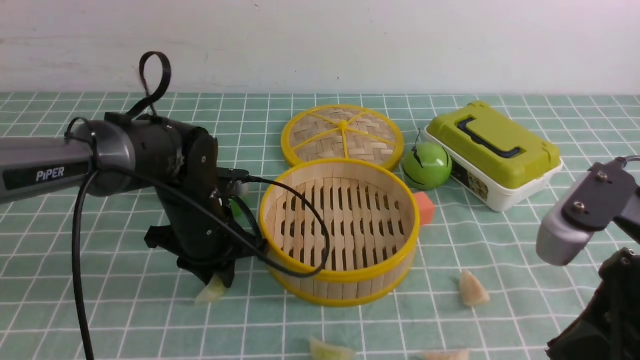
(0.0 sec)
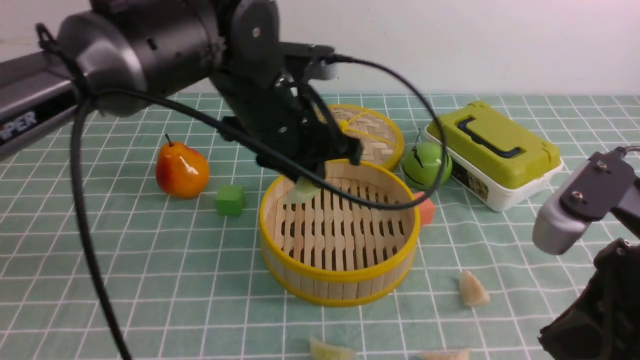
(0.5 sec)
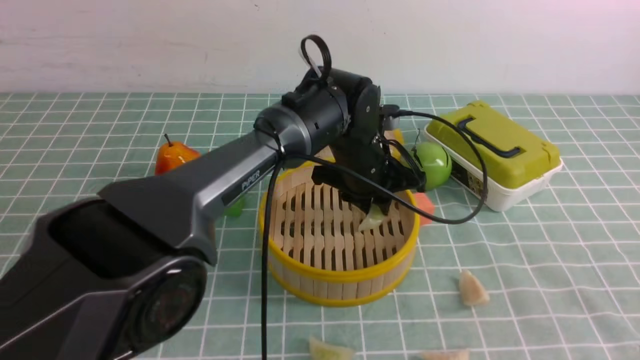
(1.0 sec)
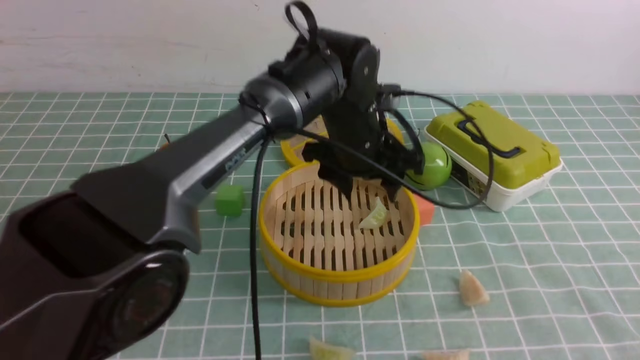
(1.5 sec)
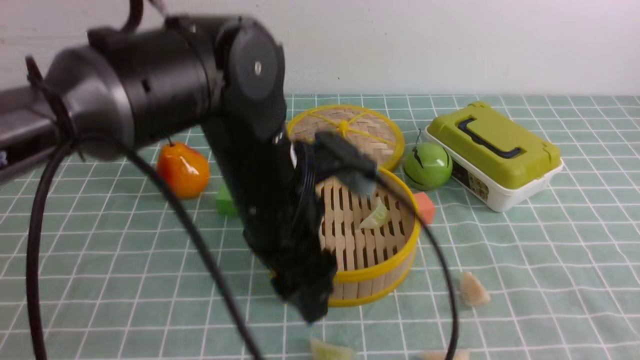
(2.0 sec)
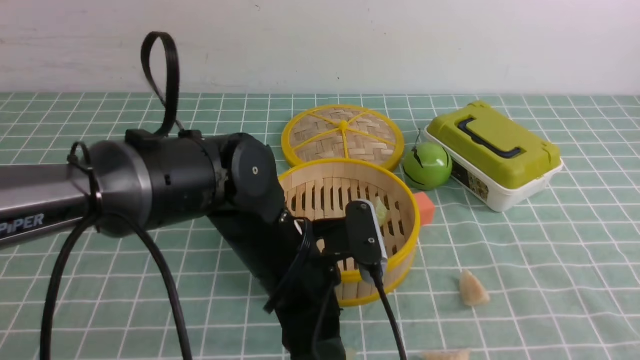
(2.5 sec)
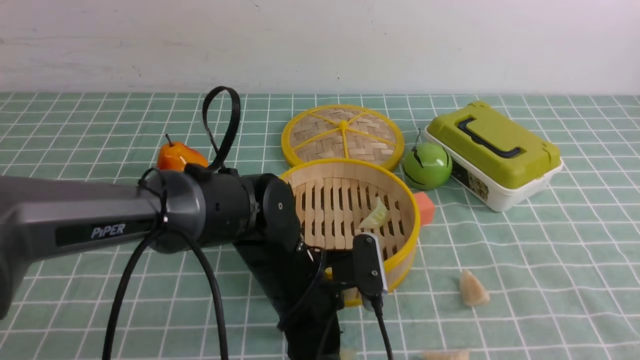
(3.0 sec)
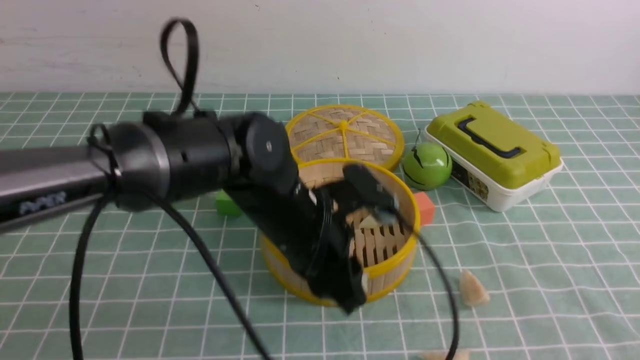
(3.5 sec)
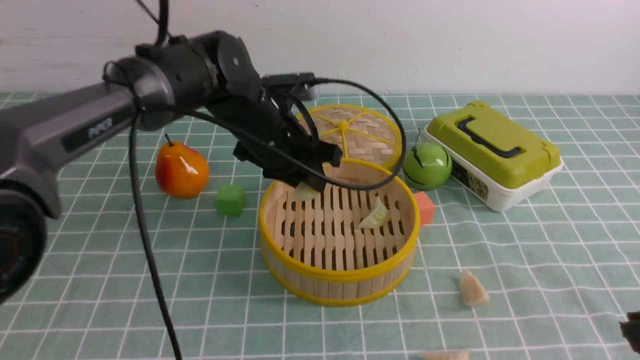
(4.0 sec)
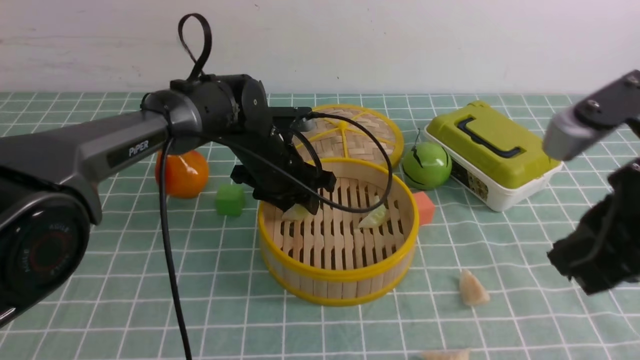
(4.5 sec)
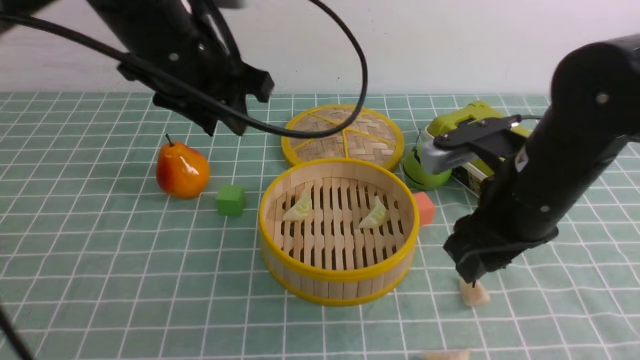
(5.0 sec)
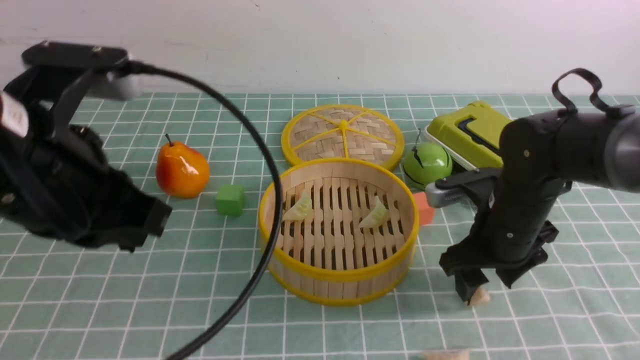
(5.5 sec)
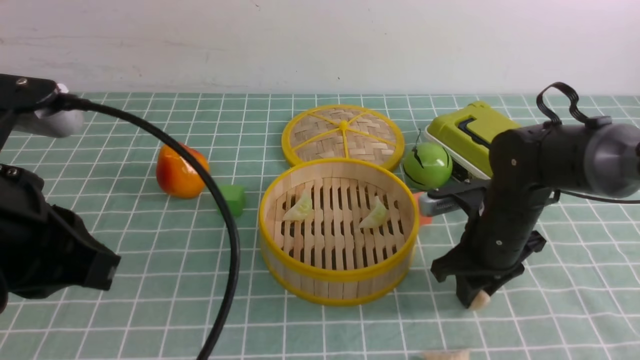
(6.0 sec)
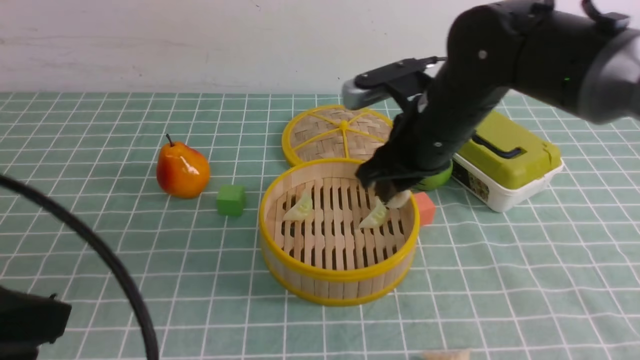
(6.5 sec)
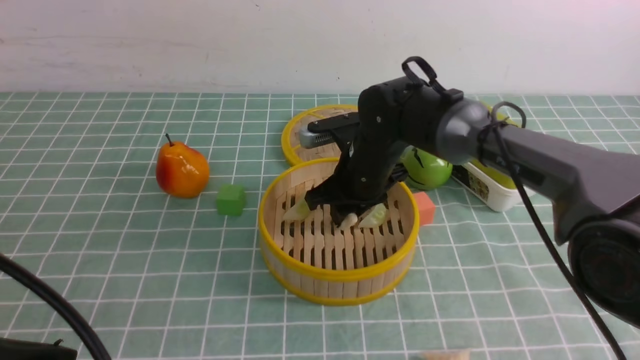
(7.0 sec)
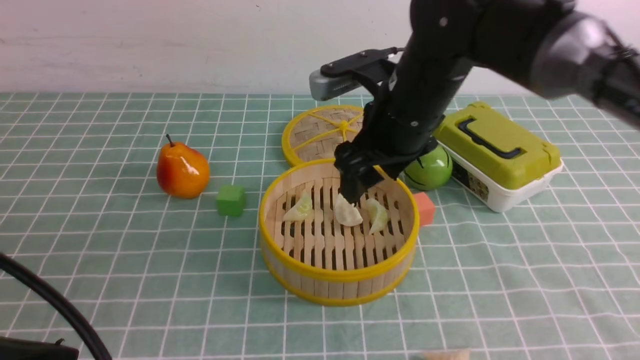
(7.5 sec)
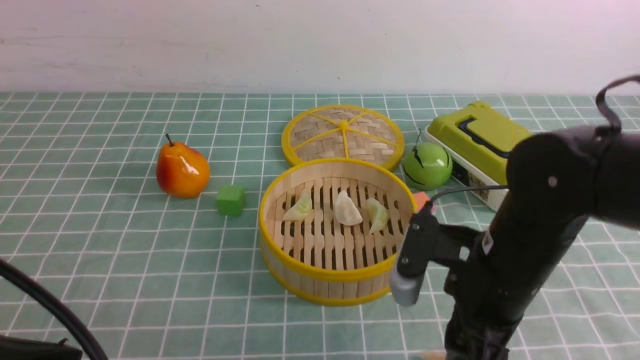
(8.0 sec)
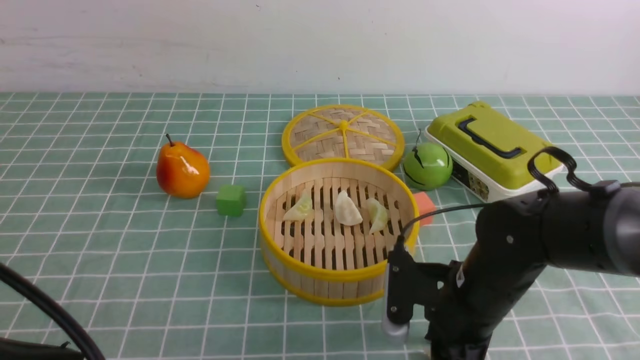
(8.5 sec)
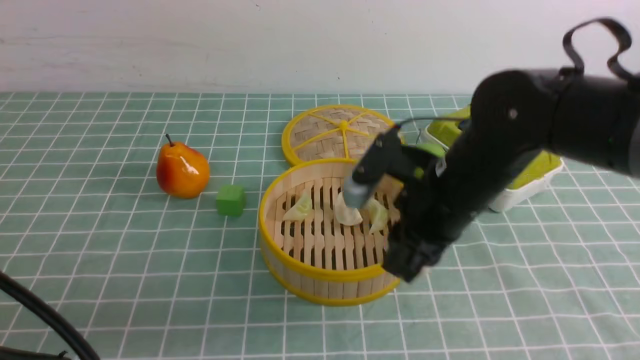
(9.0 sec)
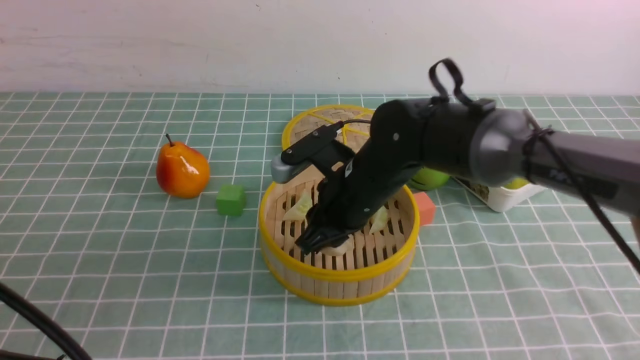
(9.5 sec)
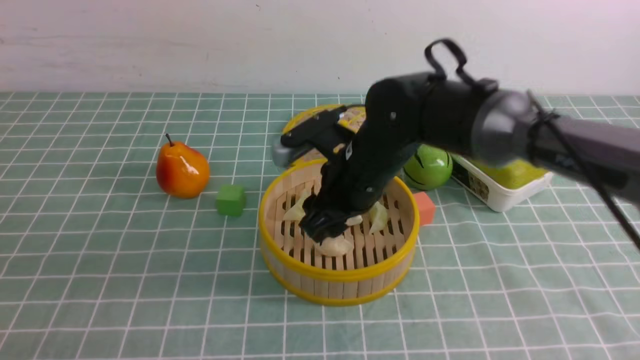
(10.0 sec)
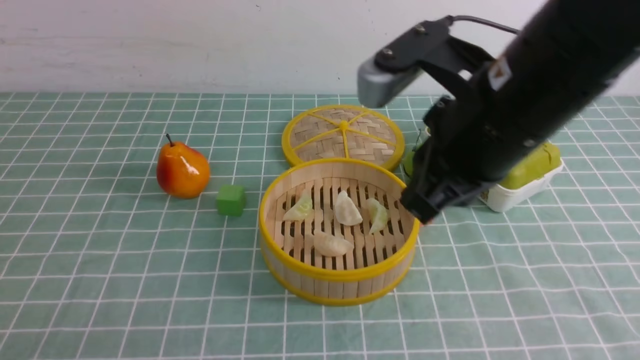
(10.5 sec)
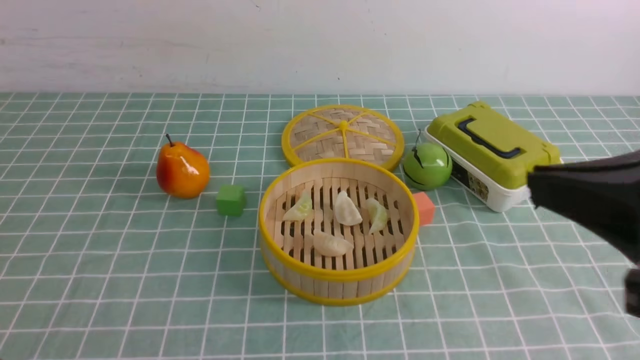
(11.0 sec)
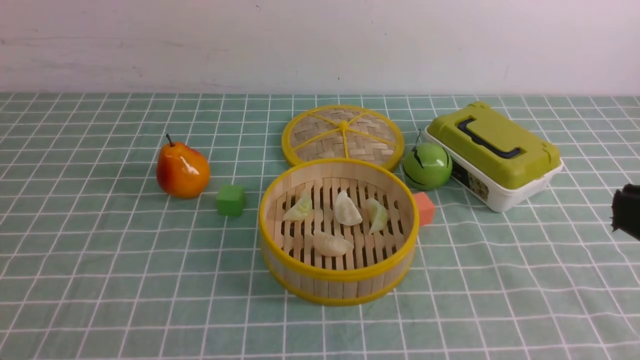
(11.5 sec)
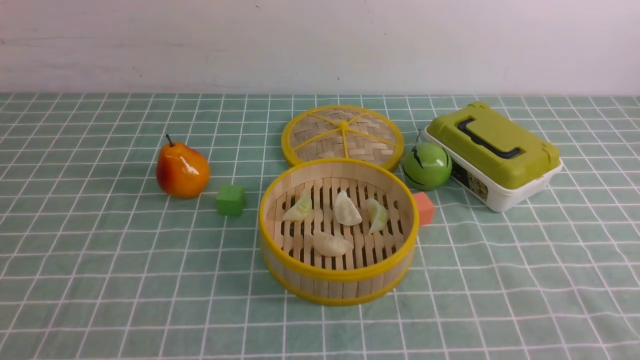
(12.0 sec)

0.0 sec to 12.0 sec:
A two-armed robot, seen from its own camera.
Task of the whole recording: put the dumplings into the steamer on the table with the blue tablecloth.
Step, 0.5 sec to 1.5 sec: use the left arm to put the dumpling into the steamer.
Step, 2.0 sec to 3.5 sec: use the left arm to grab a dumpling.
Step, 4.0 sec to 4.5 sec: use the left arm to put the dumpling into the steamer.
Step, 5.0 sec to 6.0 sec: use the right arm to grab a dumpling.
Step, 6.5 sec to 7.5 sec: use the right arm to put the dumpling into the steamer.
Step, 8.0 sec to 9.0 sec: use the right arm to grab a dumpling.
Step, 9.5 sec to 10.0 sec: use the right arm to put the dumpling into the steamer.
0.0 sec to 2.0 sec: The right gripper is displaced backward, to the right and upward by some 10 cm. Meanwhile the left gripper heads upward, to the right and backward, covering about 15 cm, and opens its fingers.
2.0 sec to 4.0 sec: The right gripper moves about 5 cm. The left gripper travels forward by some 15 cm, and closes up.
4.0 sec to 6.0 sec: The left gripper shifts approximately 30 cm backward, to the left and upward, and closes its fingers; the right gripper shifts approximately 30 cm forward and downward, and opens.
6.0 sec to 8.0 sec: The grippers both shift backward by some 10 cm. The right gripper opens its fingers.
8.0 sec to 10.0 sec: The right gripper shifts some 15 cm forward and to the left.
10.0 sec to 12.0 sec: The right gripper moves backward and to the right, approximately 40 cm, and closes.
